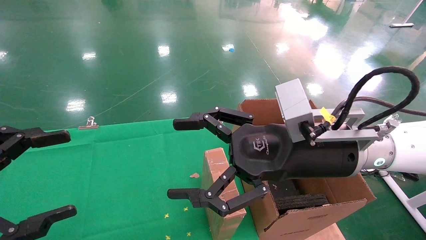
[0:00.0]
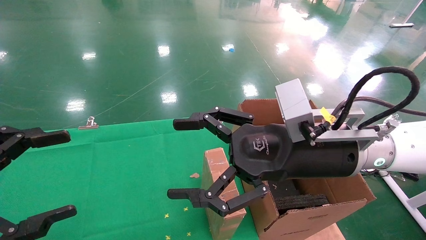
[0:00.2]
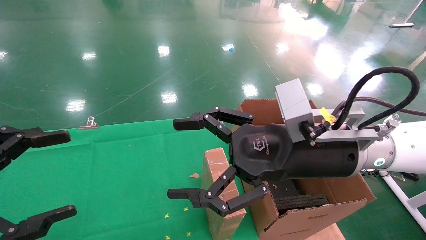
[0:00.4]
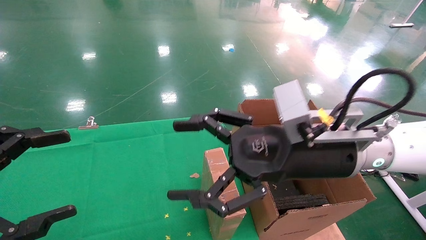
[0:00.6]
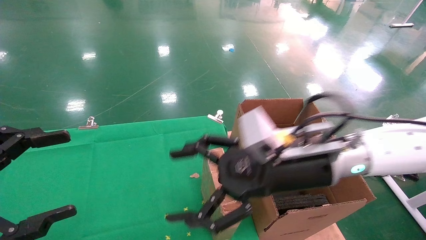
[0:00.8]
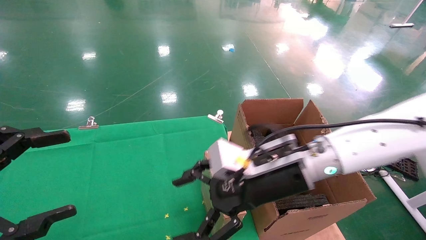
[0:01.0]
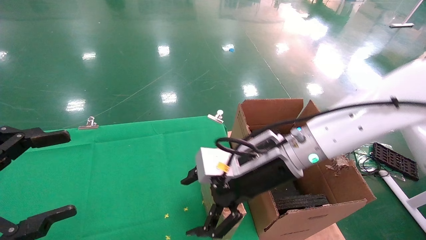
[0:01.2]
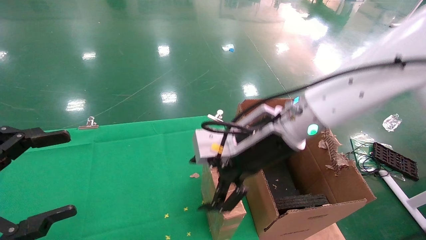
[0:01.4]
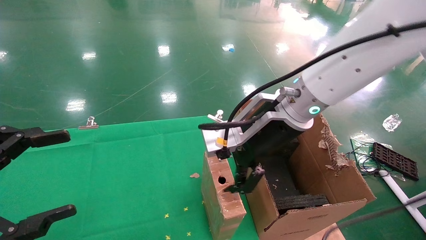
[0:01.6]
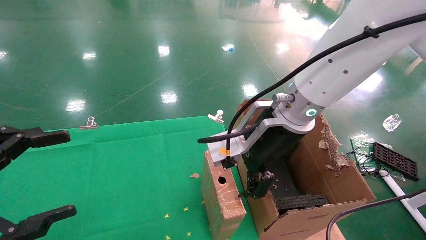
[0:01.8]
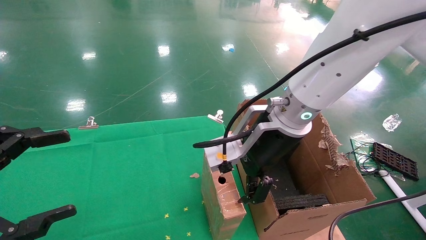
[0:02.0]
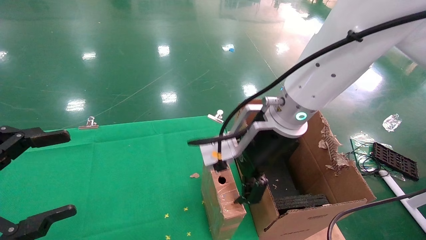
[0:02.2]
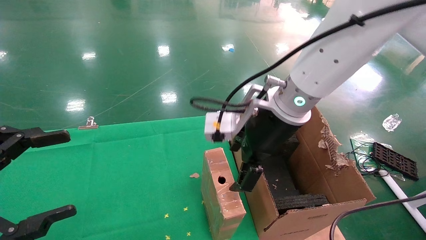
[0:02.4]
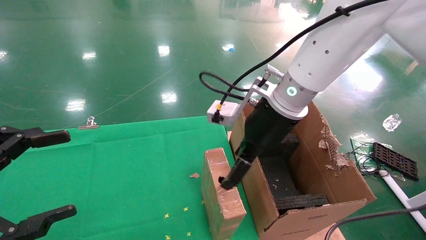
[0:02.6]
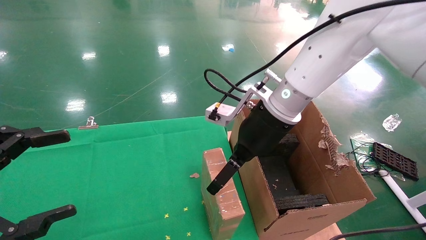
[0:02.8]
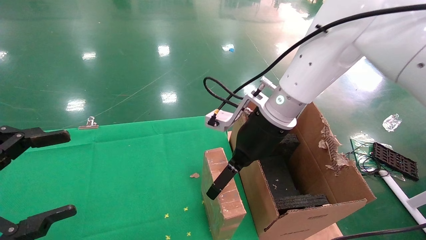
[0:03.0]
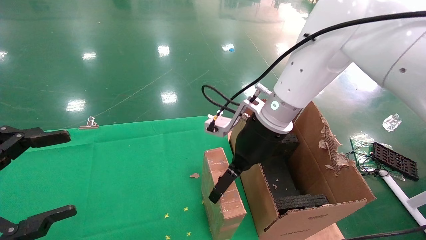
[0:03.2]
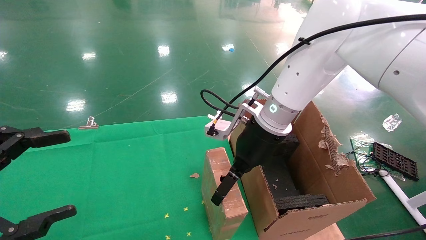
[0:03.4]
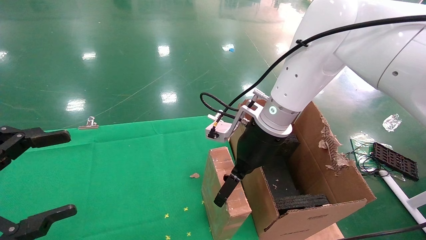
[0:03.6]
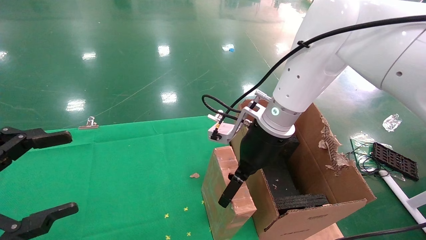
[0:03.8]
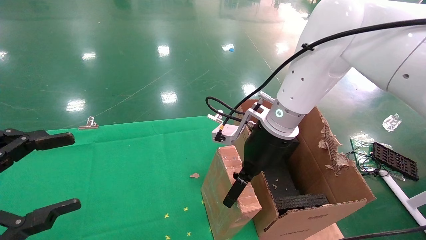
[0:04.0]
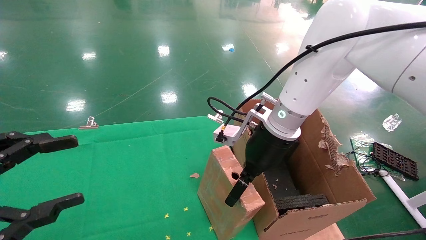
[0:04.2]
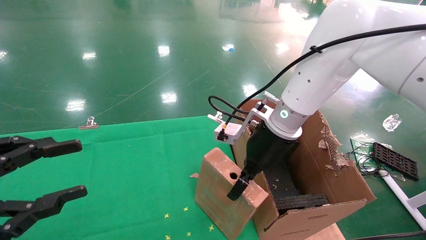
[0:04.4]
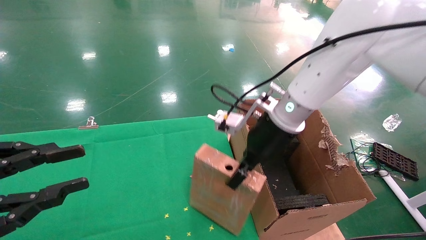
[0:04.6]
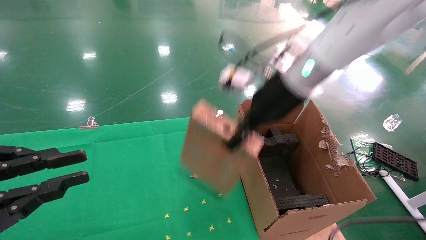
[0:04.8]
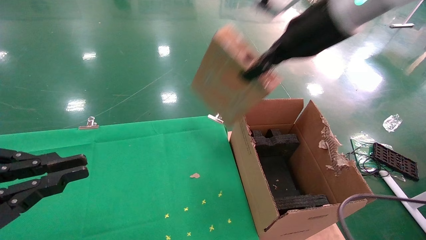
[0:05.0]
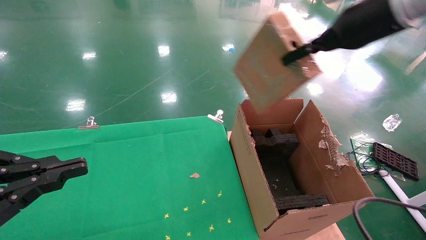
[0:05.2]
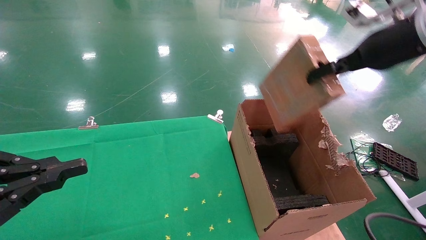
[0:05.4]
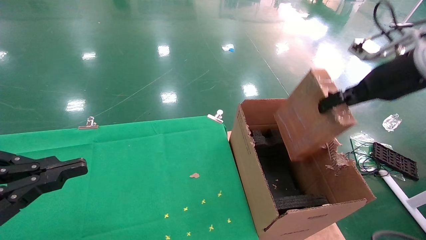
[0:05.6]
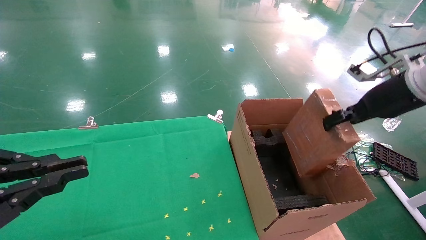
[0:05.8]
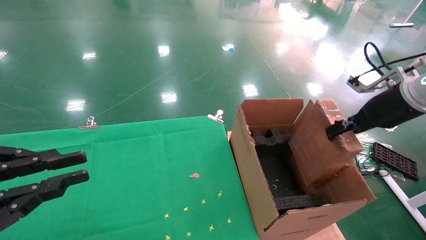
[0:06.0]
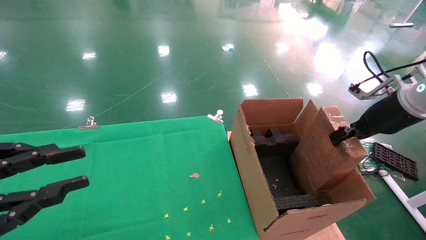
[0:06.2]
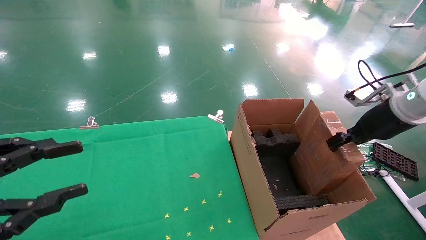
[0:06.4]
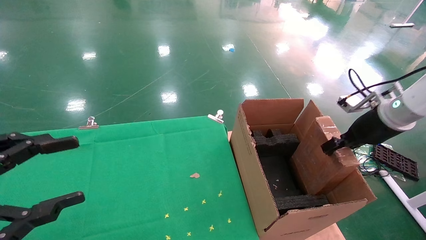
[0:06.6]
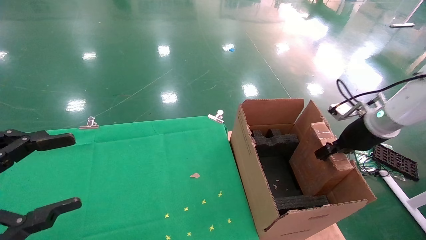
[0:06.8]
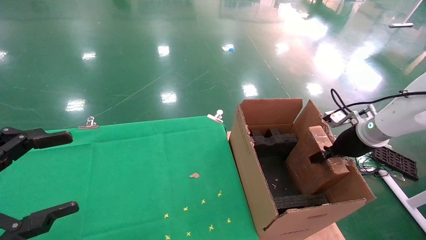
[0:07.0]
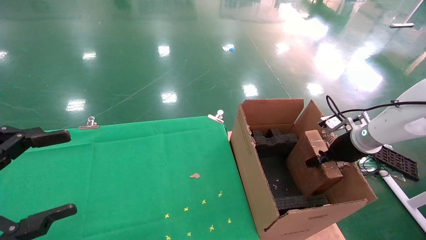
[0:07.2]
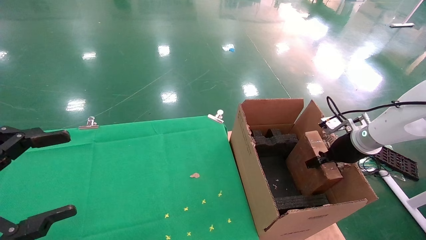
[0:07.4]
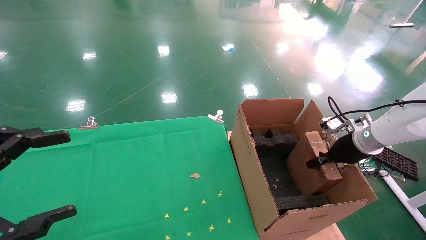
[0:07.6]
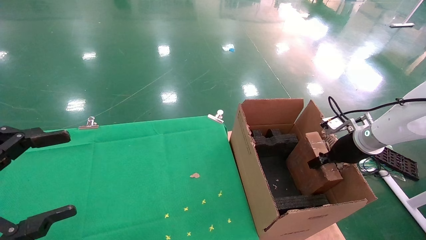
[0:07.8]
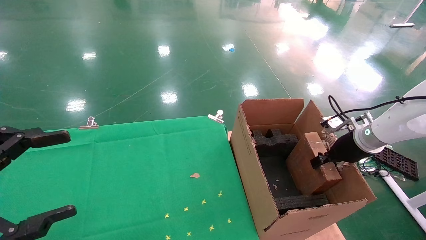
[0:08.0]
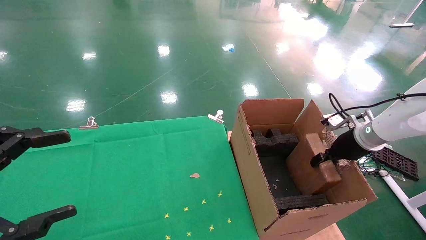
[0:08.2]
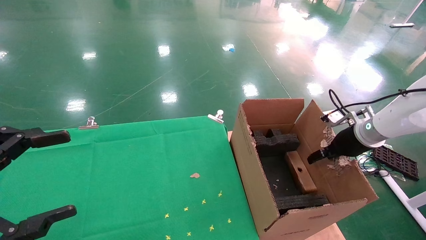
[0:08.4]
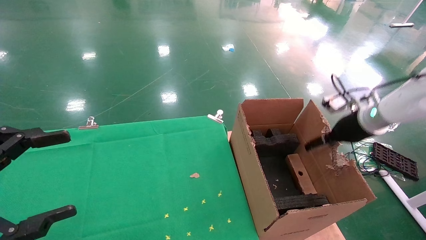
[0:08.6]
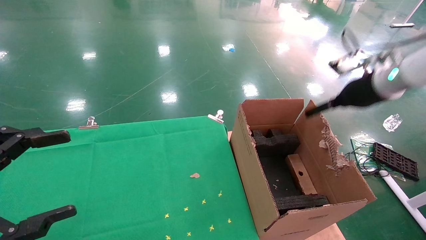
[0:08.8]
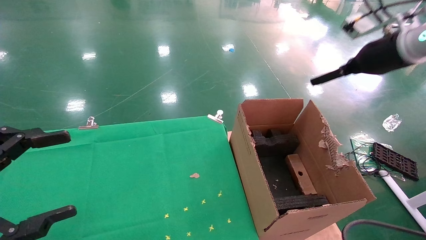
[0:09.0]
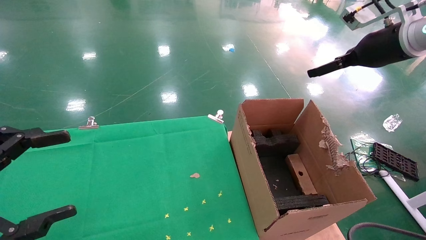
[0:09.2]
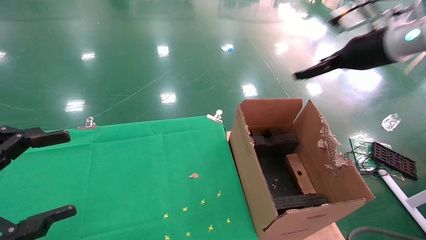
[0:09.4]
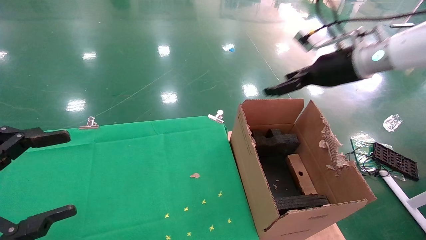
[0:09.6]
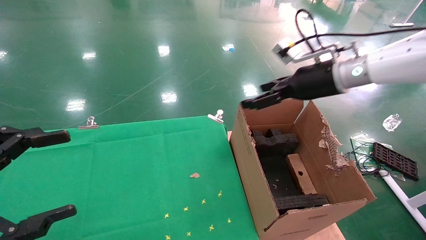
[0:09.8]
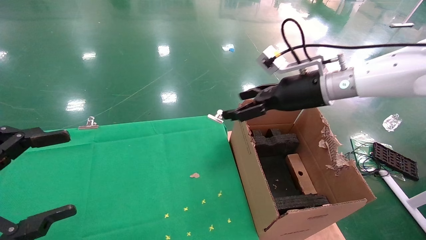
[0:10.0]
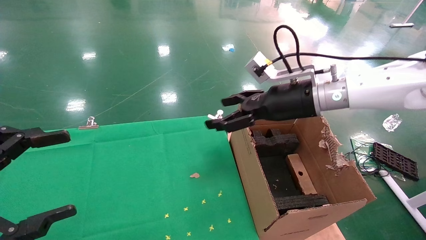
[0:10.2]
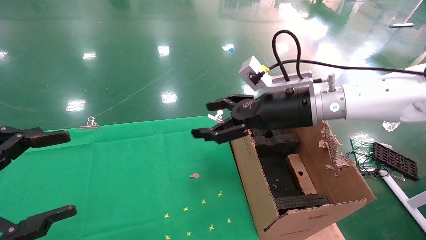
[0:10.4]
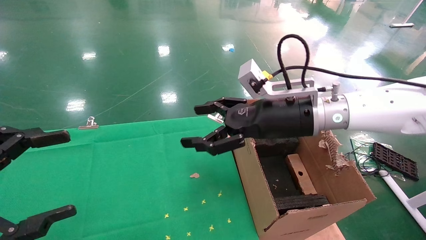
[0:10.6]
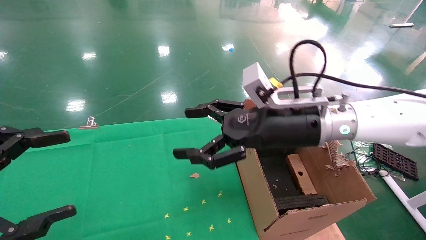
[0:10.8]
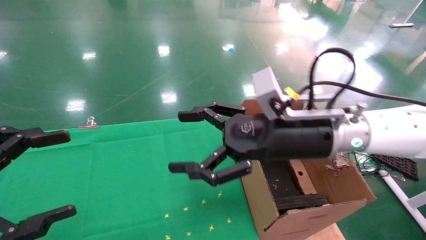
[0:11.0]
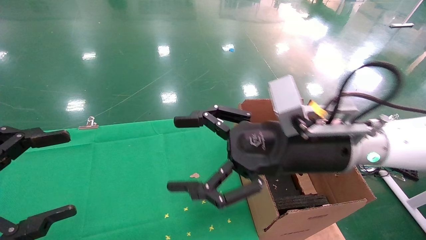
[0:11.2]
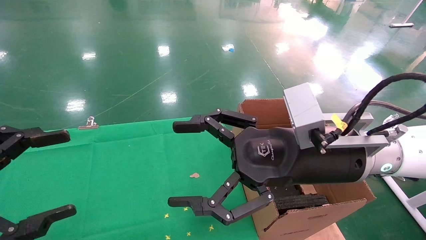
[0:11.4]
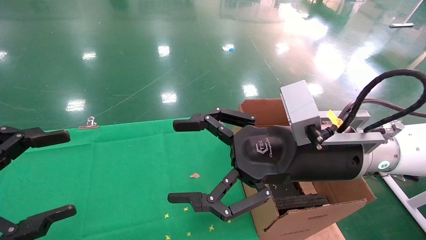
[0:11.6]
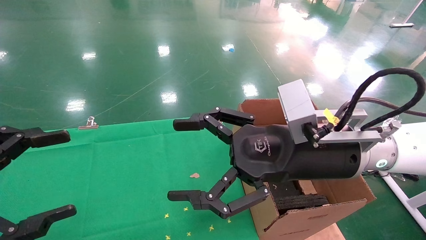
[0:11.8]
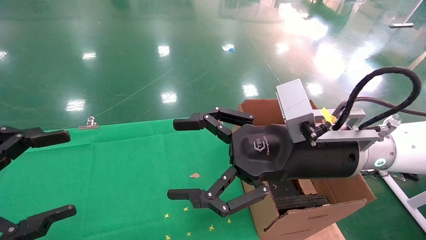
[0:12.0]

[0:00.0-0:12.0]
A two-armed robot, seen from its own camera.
Task of the whole recording: using a robotic arm to pick up a cardboard box and palace it the carton.
Step, 0:00.8 to 0:04.4: Pick up the mouse and the power cord paper box.
Step, 0:04.6 to 0:08.4: Place the mouse and the power cord paper box into the container.
0:00.0 to 0:01.6: The right gripper shifts about 10 cm forward and to the left.
0:01.6 to 0:03.0: The right gripper shifts about 5 cm forward.
0:03.0 to 0:04.4: The left gripper closes up, while the right gripper closes up.
0:04.4 to 0:06.0: The left gripper closes up; the right gripper moves to the right, some 25 cm, and closes its fingers.
0:06.0 to 0:07.6: The left gripper opens up. Meanwhile the right gripper shifts about 15 cm downward and forward.
0:07.6 to 0:09.0: The right gripper moves upward, roughly 20 cm, and opens up.
0:09.0 to 0:10.4: The right gripper is displaced to the left and downward by about 20 cm.
0:10.4 to 0:12.0: The right gripper shifts approximately 10 cm backward.

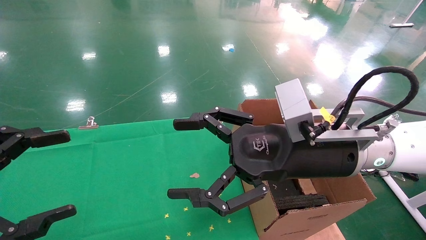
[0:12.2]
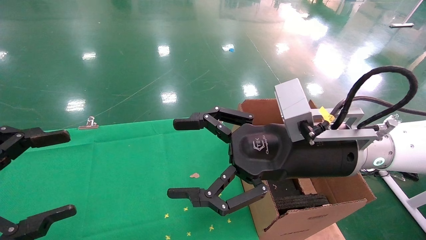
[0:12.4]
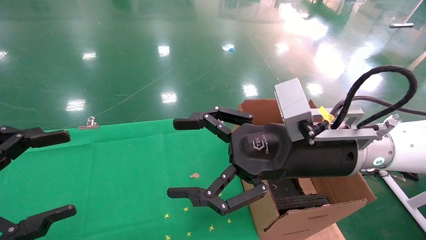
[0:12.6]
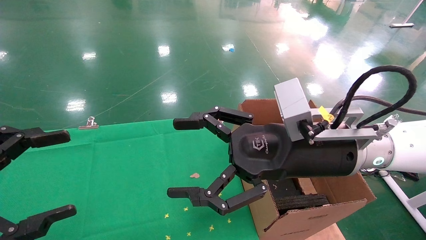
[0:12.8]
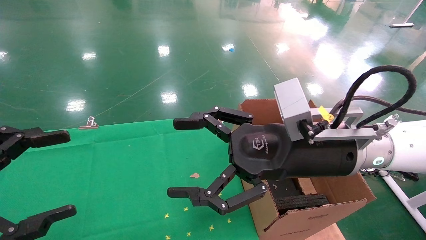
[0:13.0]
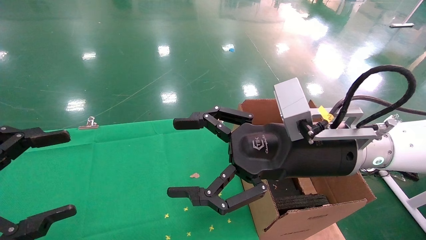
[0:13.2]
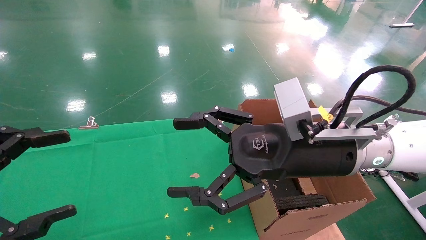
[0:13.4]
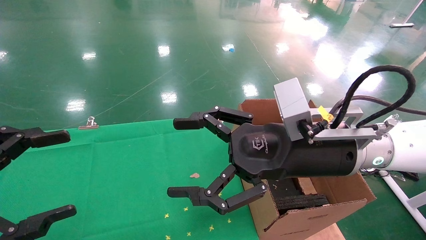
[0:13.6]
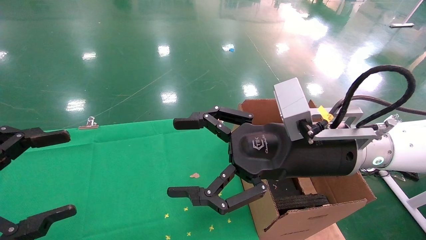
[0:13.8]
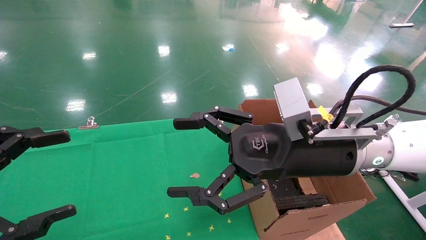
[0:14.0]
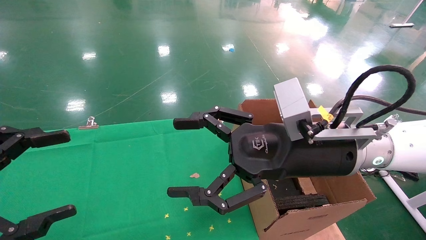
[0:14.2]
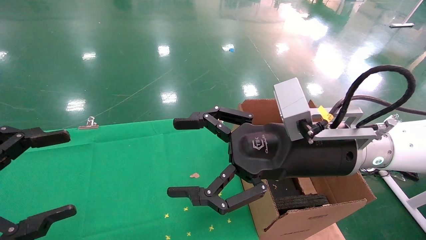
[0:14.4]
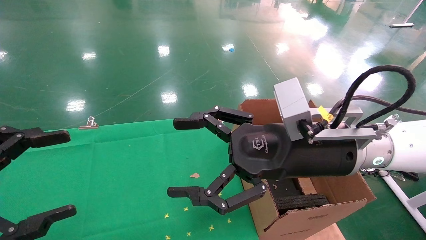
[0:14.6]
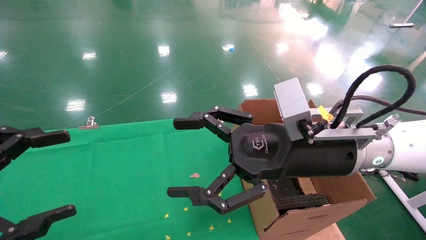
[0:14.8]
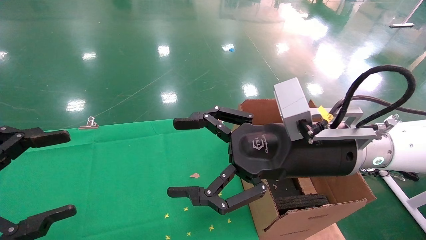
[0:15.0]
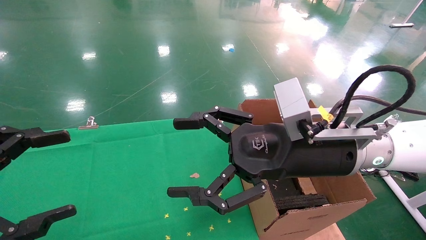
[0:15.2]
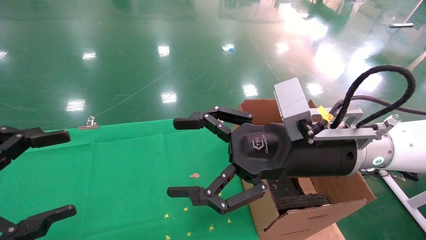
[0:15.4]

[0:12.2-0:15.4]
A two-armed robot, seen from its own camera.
Task of the whole recording: using a robotic arm to pick up a cardboard box and palace it the carton.
0:12.2 to 0:15.4: Neither gripper changes place.
